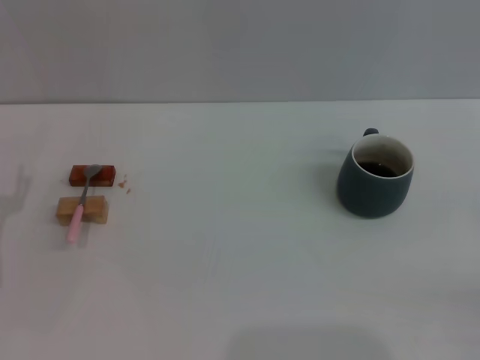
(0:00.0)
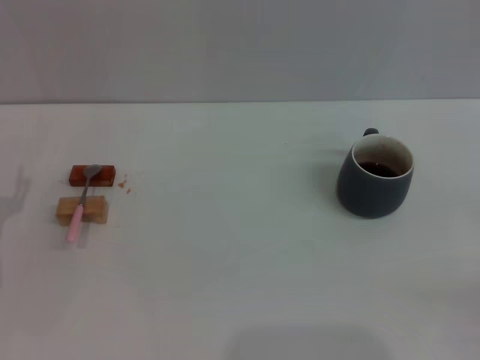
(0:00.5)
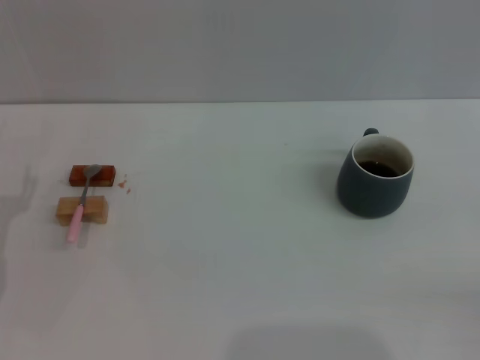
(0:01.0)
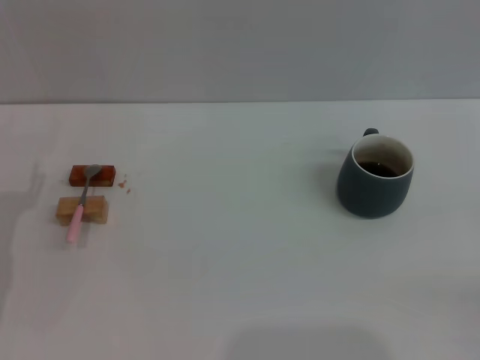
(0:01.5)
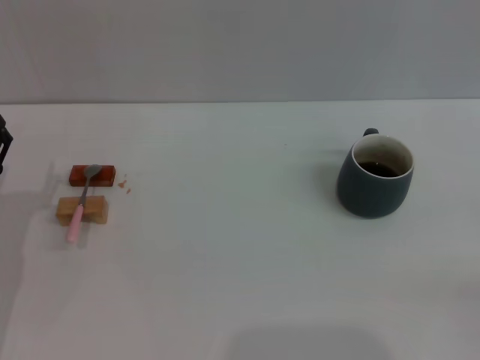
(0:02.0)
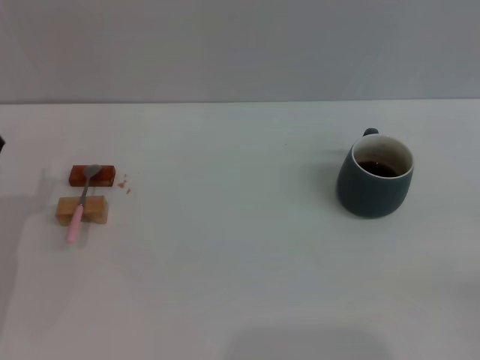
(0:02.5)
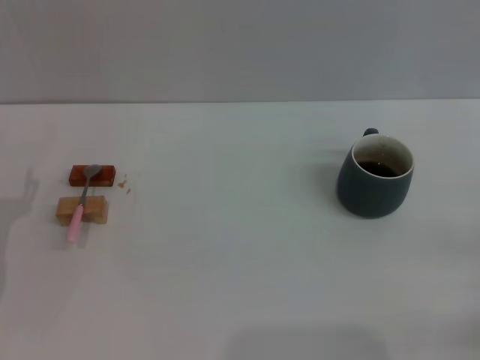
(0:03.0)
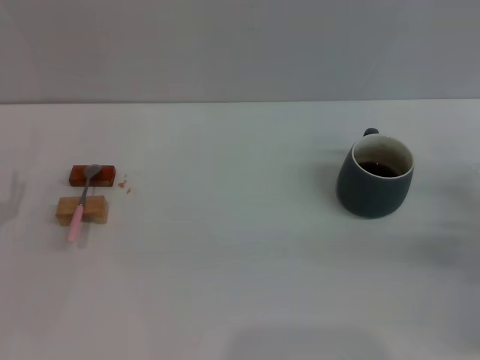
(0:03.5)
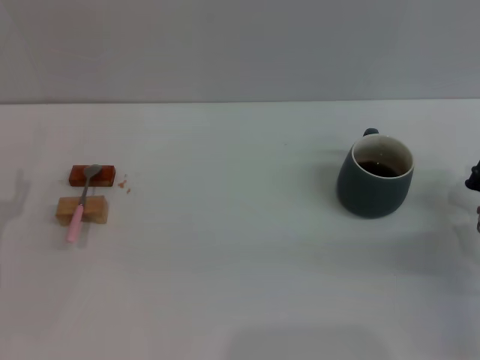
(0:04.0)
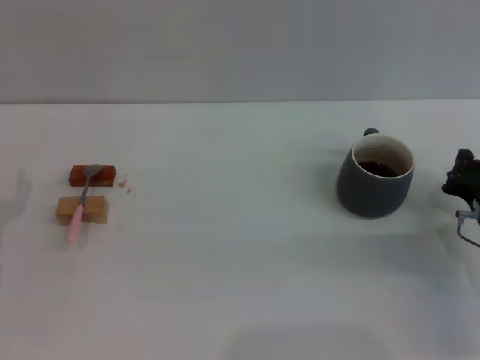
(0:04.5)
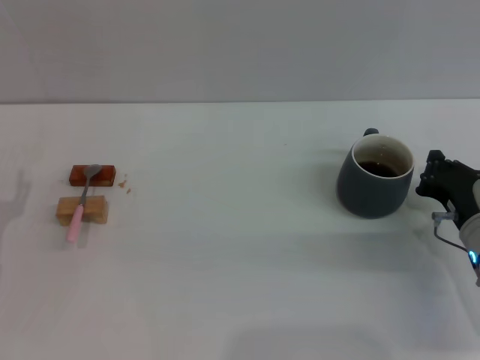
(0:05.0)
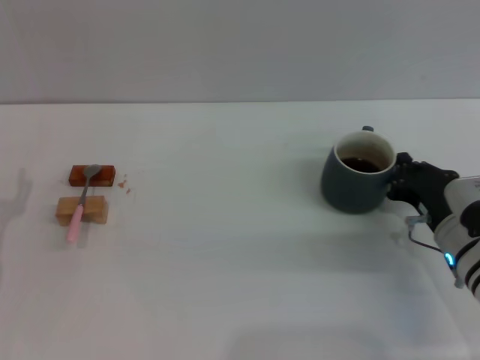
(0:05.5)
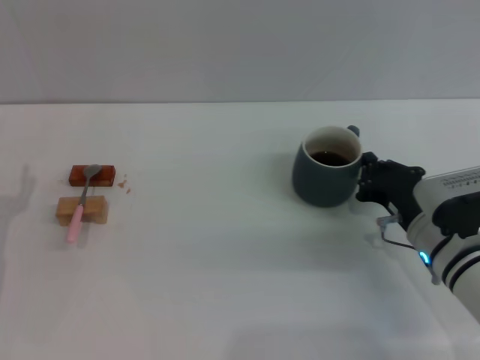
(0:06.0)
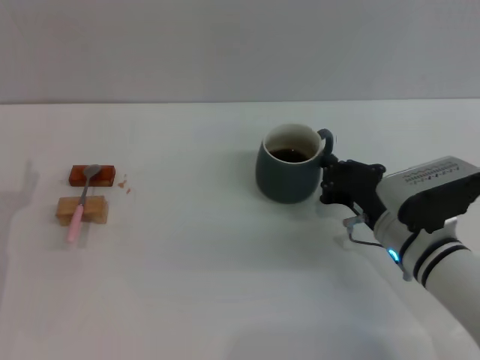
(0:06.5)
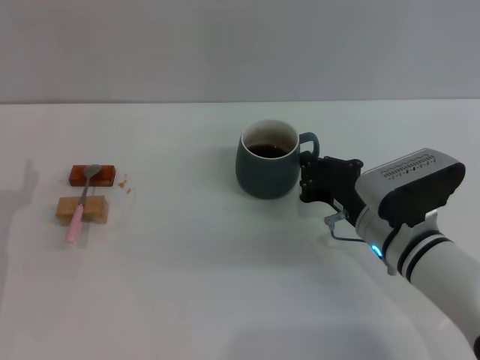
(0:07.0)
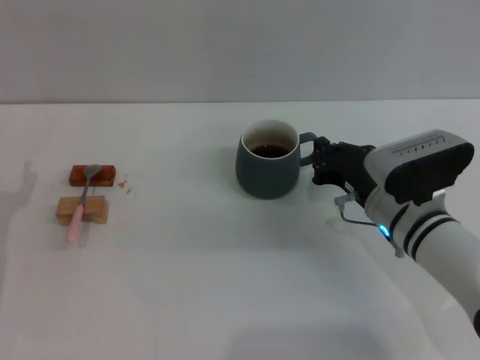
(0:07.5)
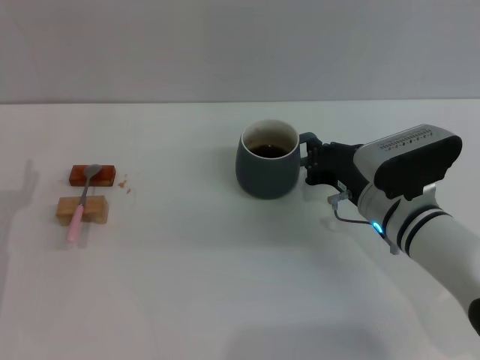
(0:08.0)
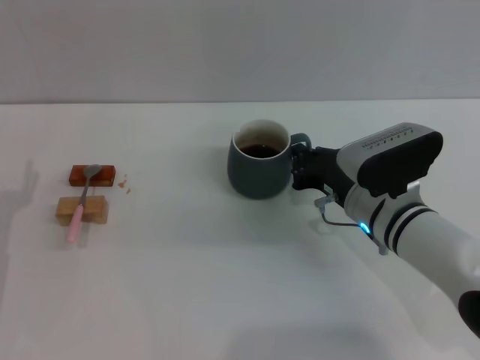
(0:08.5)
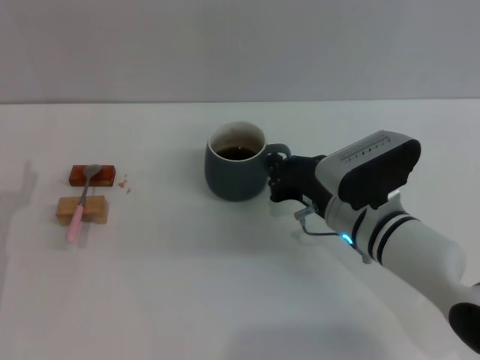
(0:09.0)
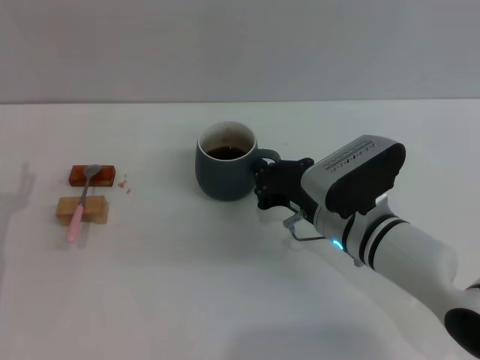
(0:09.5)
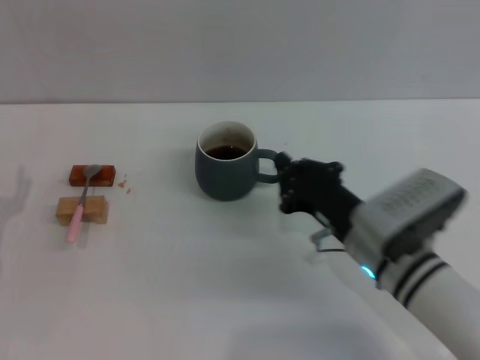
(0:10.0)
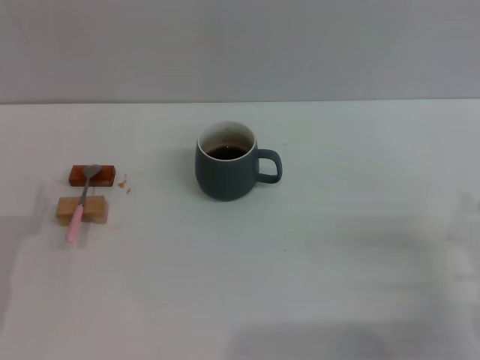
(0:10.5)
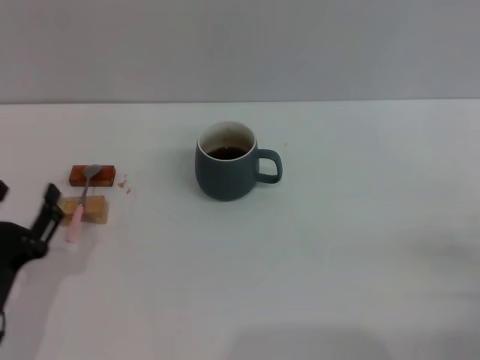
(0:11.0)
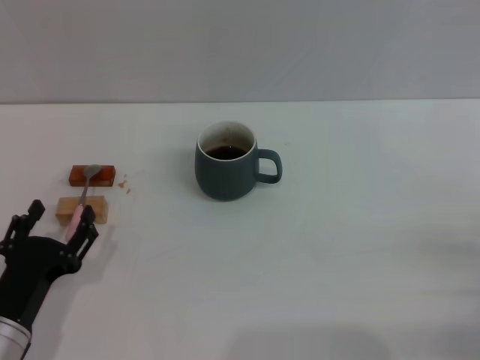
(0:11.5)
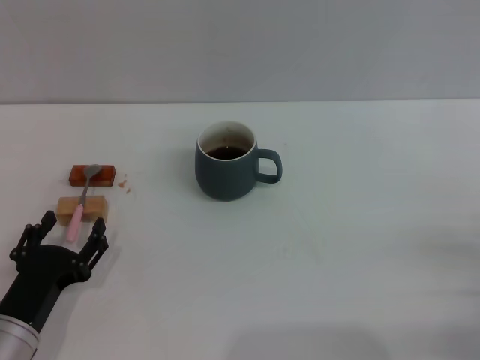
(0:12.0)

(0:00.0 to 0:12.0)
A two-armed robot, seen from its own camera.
Task of the whole recording: Move the grey cup to the center, lift the pink spoon, stir it three times in the cup, and put the spoon into the cup.
Step, 0:00.0 - 0:10.0: Move the cup with coffee to the center of view with the right gripper.
0:02.0 - 0:04.0: The right gripper shifts roughly 15 cm forward and to the left.
0:04.0 - 0:06.0: The right gripper heads to the left, covering about 10 cm.
0:06.0 - 0:08.0: The right gripper ends up some 5 cm from where it was.
0:08.0 - 0:10.0: The right gripper goes about 5 cm backward.
0:10.0 - 0:12.0: The right gripper goes some 20 cm to the right and backward. Meanwhile the left gripper is displaced to the right and backward by approximately 10 cm.

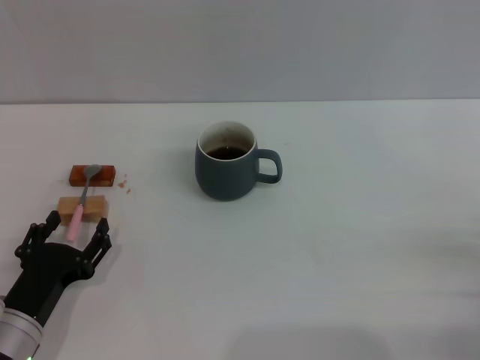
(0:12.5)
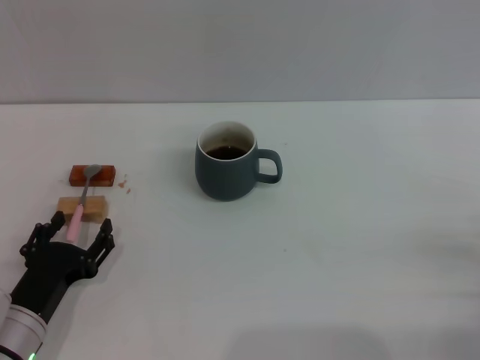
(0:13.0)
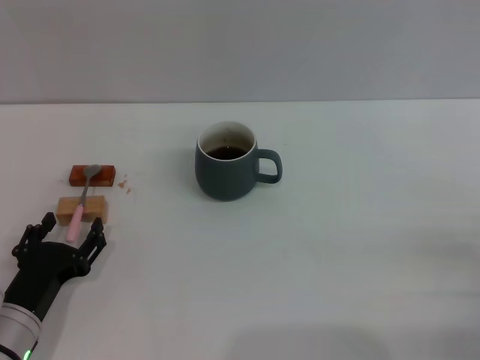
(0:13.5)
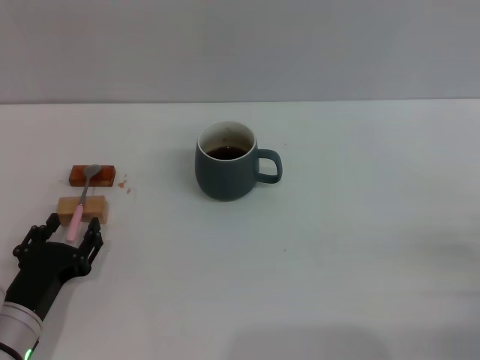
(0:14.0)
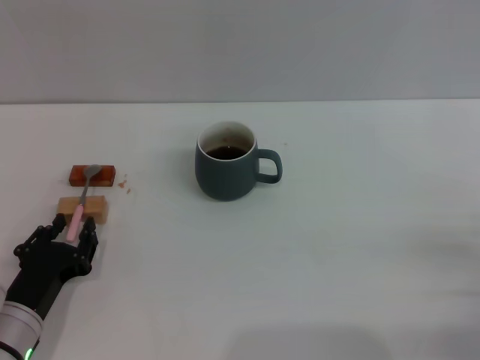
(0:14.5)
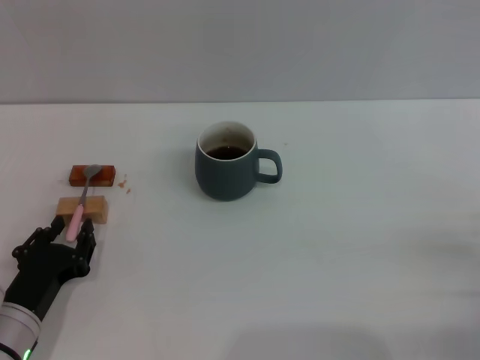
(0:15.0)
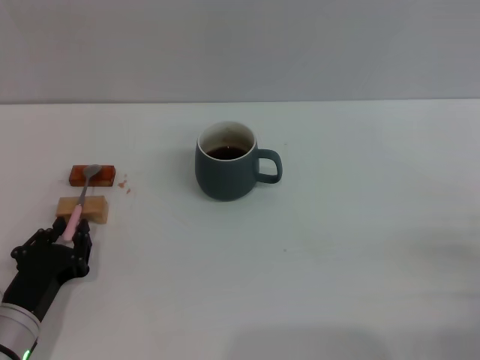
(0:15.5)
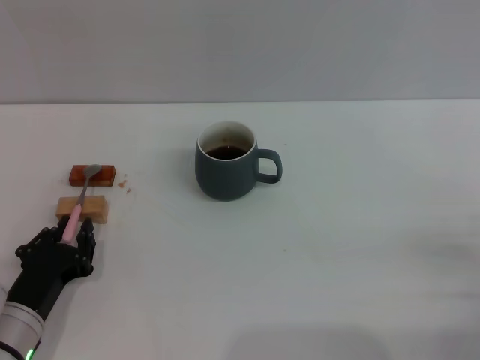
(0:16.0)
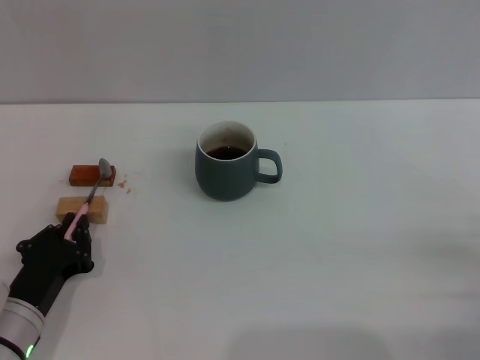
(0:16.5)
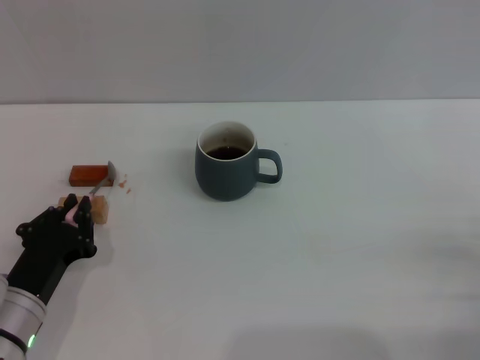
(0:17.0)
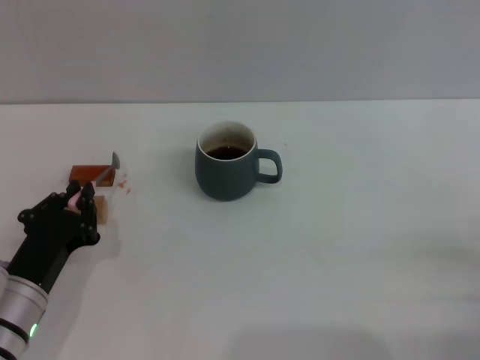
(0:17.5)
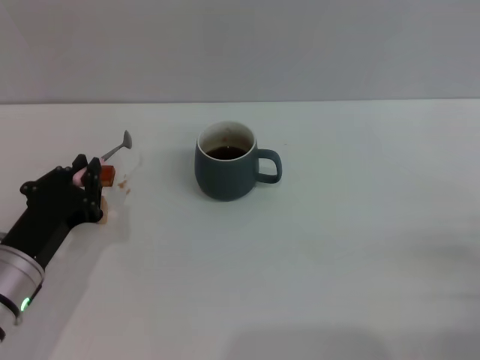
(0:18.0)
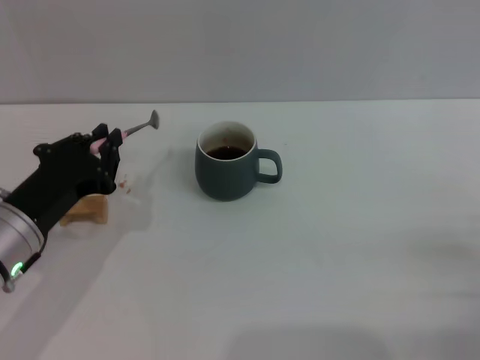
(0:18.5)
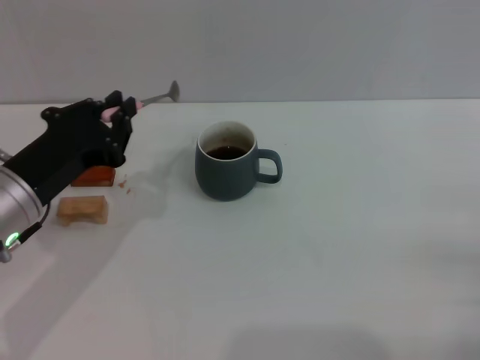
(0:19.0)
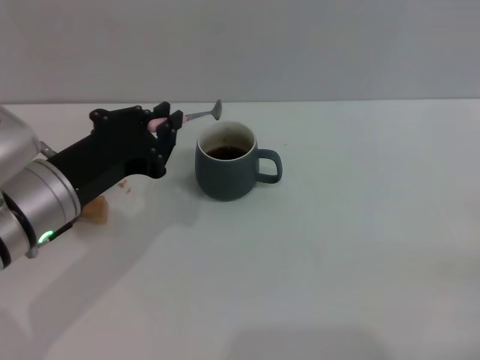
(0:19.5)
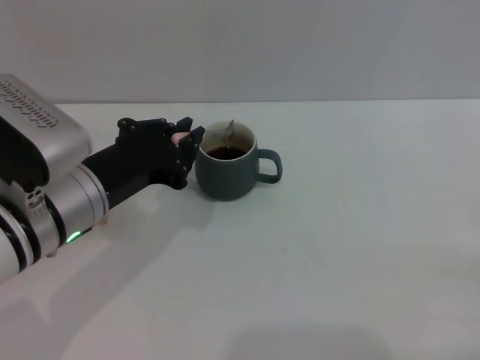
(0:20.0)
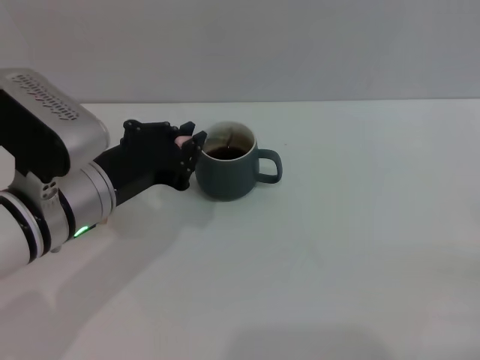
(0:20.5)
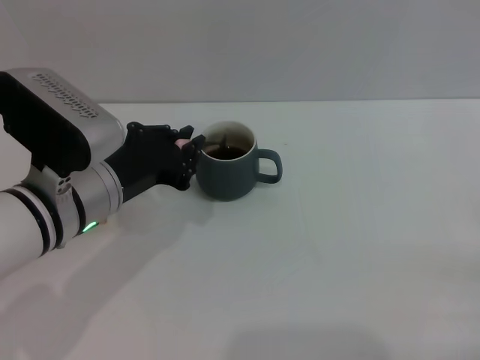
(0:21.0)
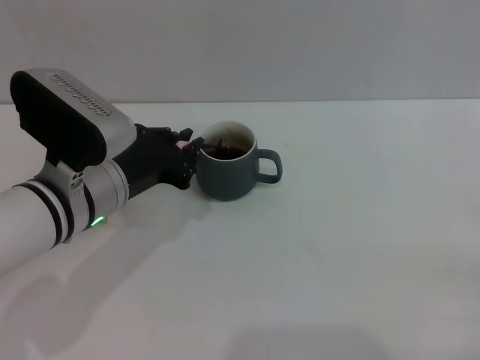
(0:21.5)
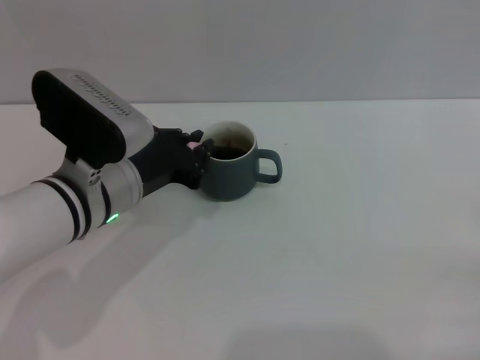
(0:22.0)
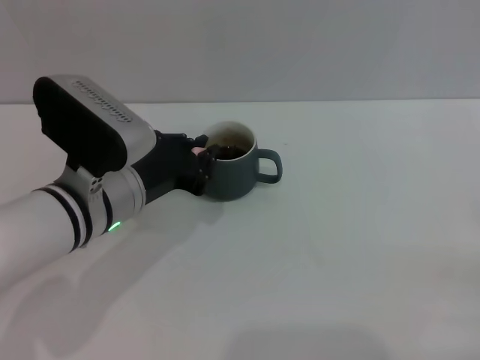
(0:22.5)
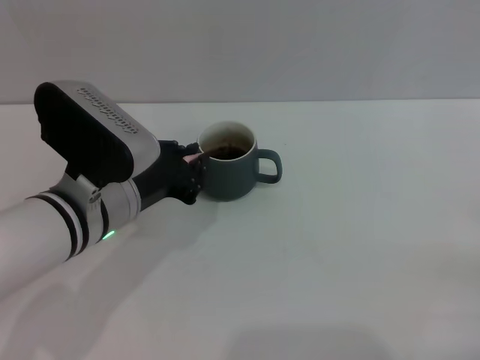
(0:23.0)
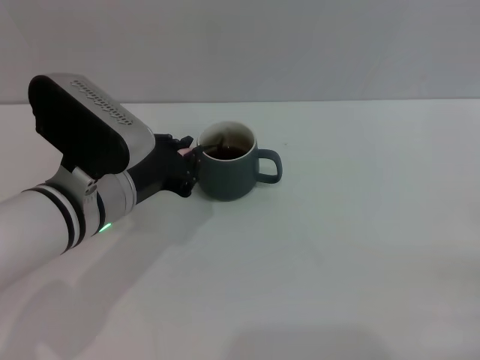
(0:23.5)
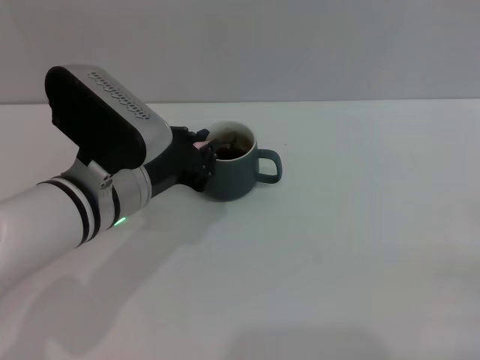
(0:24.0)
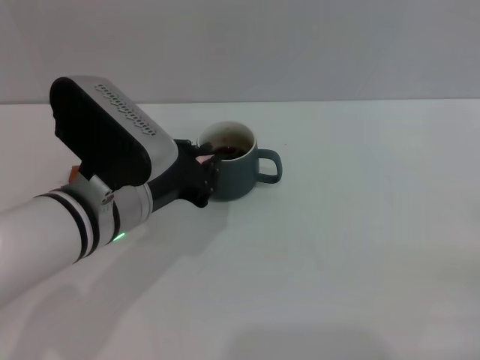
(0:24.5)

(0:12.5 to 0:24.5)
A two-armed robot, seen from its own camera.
Task of the whole recording: Move the grey cup to the center, lift the pink spoon, stir it three times in the cup, and put the spoon into the cup.
Step, 0:12.5 - 0:17.5: Pick up the spoon with the left gripper.
0:12.5 - 0:14.5: Neither gripper changes place.
0:14.5 - 0:16.5: The left gripper closes up.
0:16.5 - 0:18.5: The left gripper is displaced upward by some 10 cm.
0:18.5 - 0:20.5: The left gripper heads to the right, covering about 5 cm.
0:20.5 - 0:24.5: The grippers stay close to where they were, moving slightly.

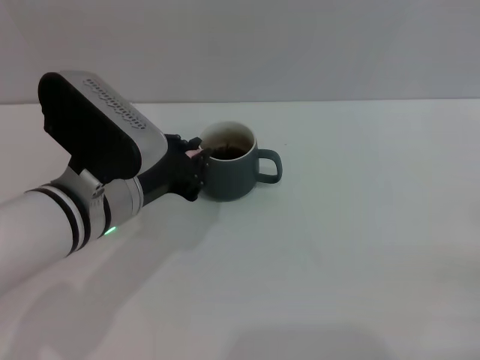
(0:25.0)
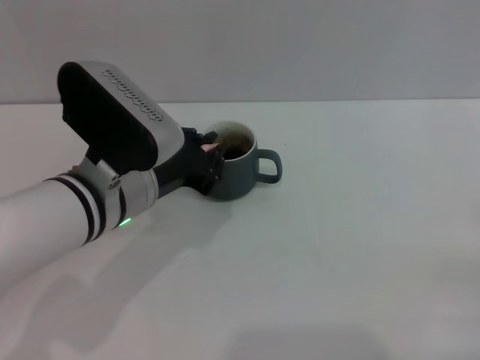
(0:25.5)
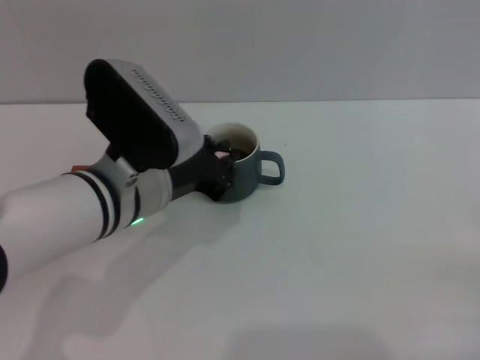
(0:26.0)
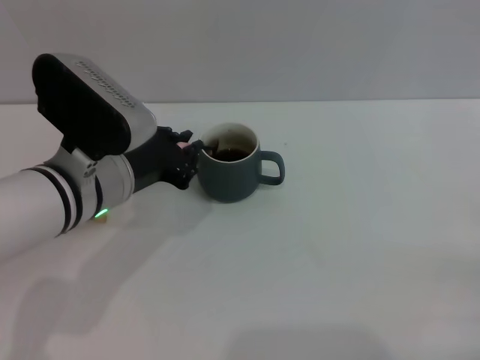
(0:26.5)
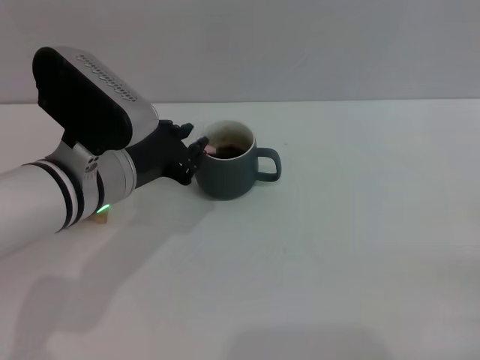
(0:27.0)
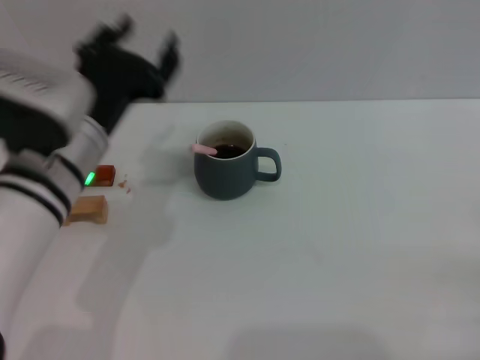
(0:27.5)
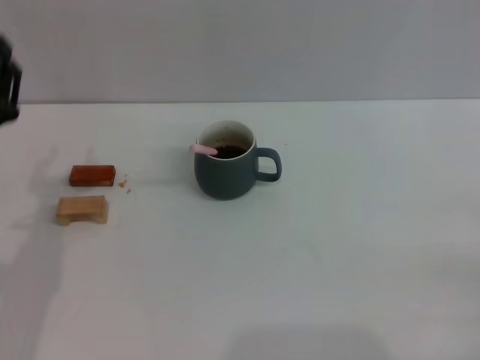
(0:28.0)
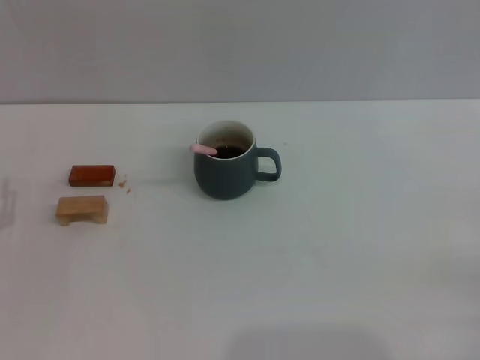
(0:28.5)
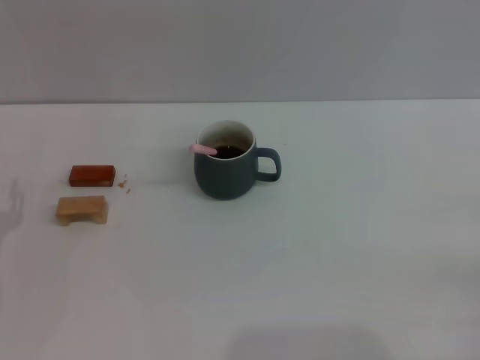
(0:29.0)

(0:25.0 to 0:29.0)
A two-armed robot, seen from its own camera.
Task of the whole recording: Move the grey cup to the center, lift the pink spoon, stir it three times in the cup, and put the spoon into the cup.
Step, 0:25.0 - 0:27.0: Stir the coffee in the cup with the left gripper.
0:25.0 - 0:27.0: The grippers make only small movements.
0:27.0 - 0:29.0: The left gripper is displaced to the left, downward and backward by roughly 20 cm, and opens its fingers.
